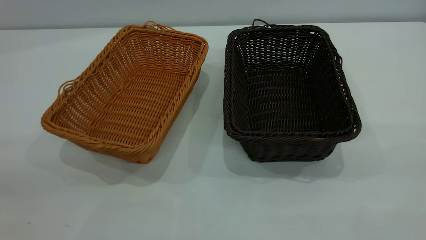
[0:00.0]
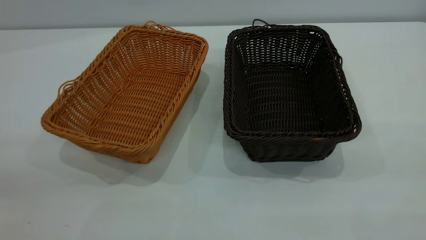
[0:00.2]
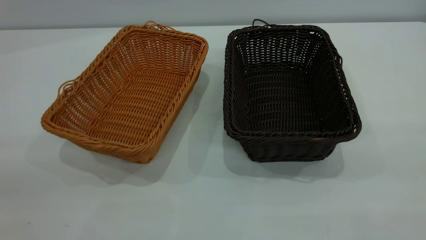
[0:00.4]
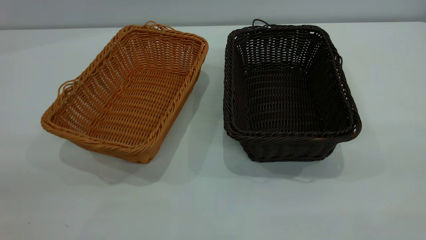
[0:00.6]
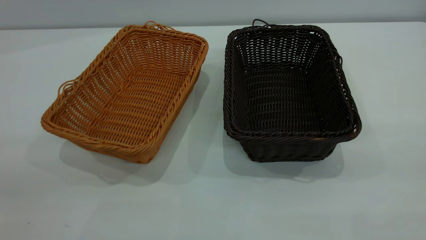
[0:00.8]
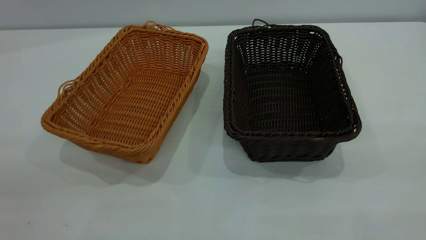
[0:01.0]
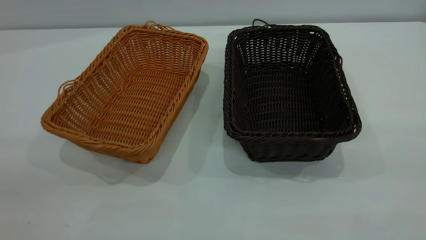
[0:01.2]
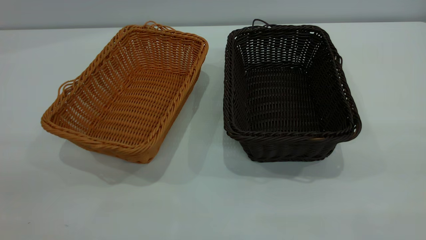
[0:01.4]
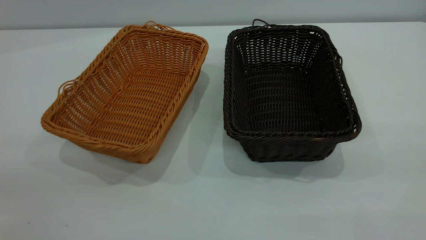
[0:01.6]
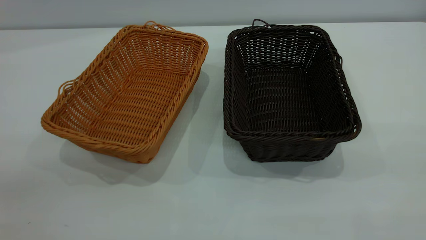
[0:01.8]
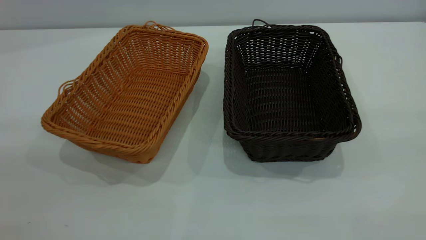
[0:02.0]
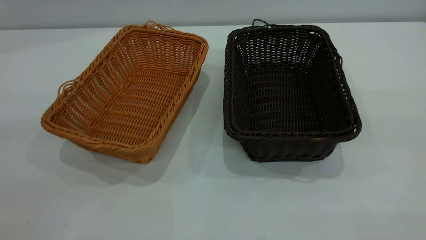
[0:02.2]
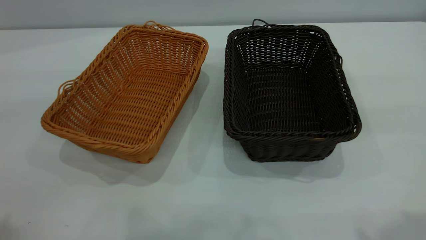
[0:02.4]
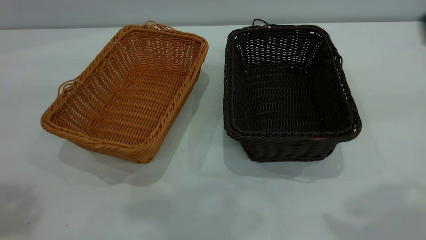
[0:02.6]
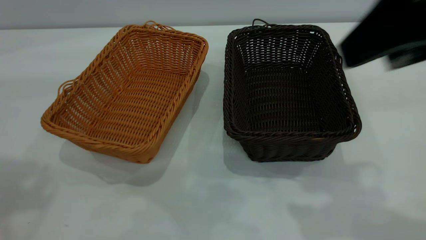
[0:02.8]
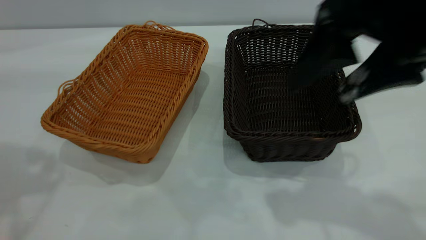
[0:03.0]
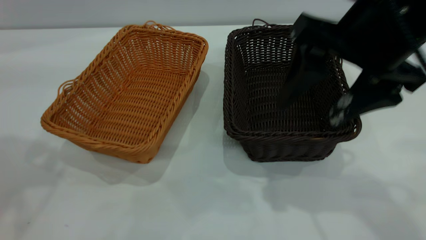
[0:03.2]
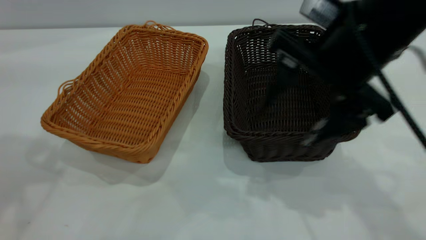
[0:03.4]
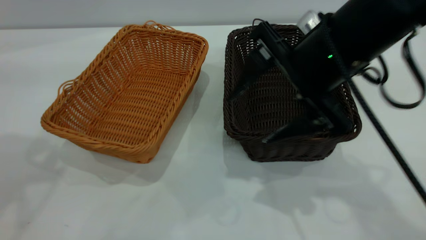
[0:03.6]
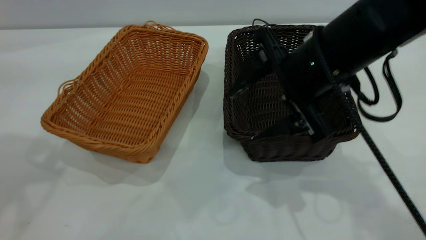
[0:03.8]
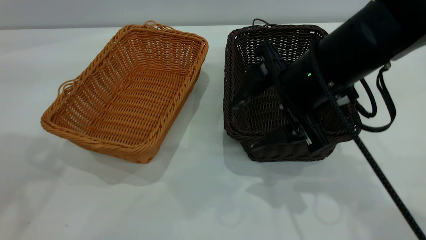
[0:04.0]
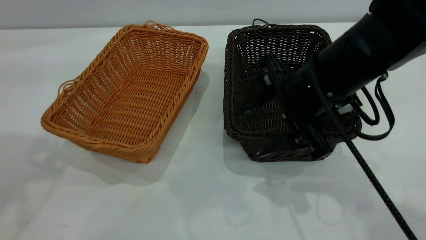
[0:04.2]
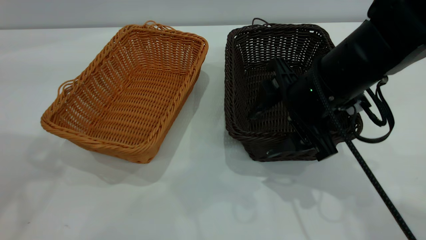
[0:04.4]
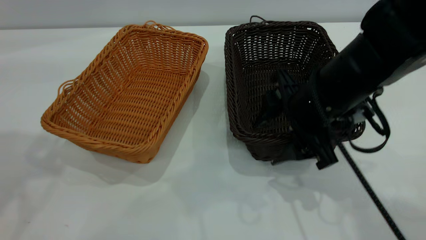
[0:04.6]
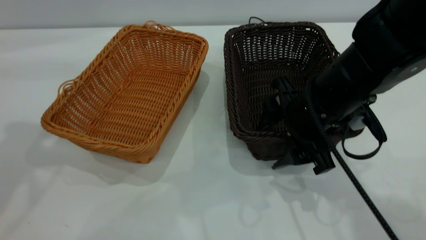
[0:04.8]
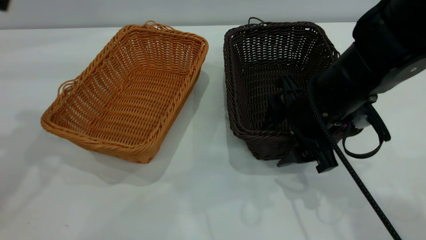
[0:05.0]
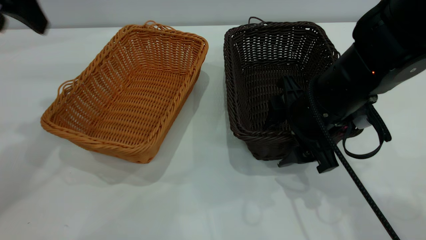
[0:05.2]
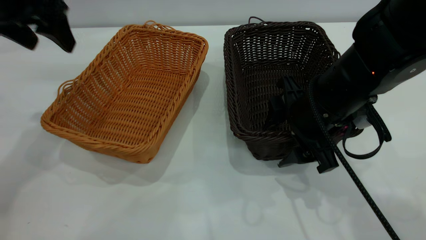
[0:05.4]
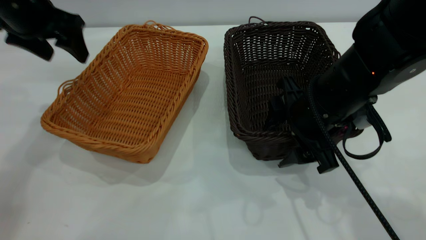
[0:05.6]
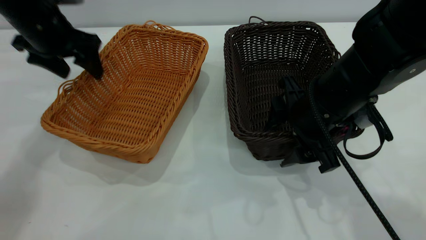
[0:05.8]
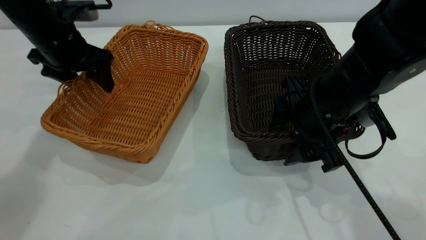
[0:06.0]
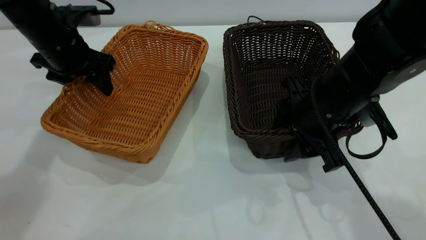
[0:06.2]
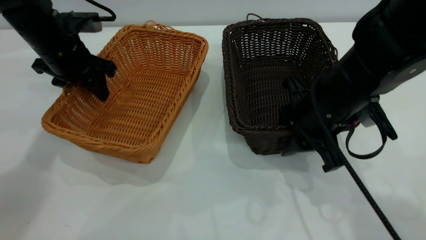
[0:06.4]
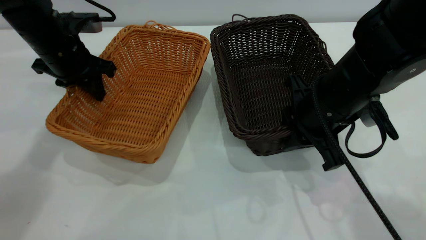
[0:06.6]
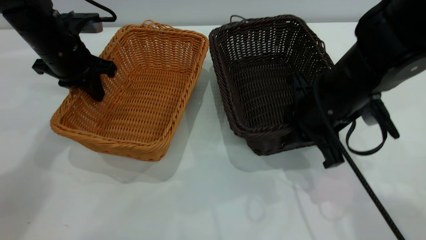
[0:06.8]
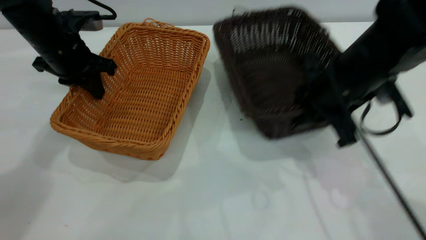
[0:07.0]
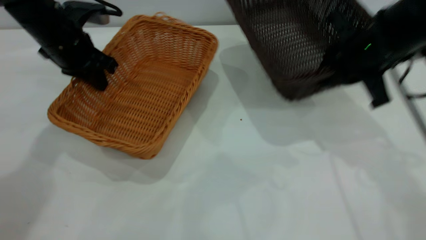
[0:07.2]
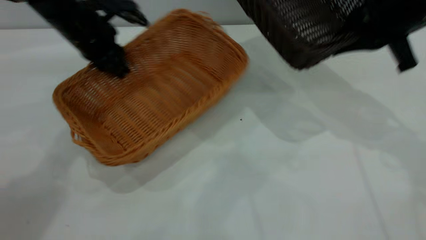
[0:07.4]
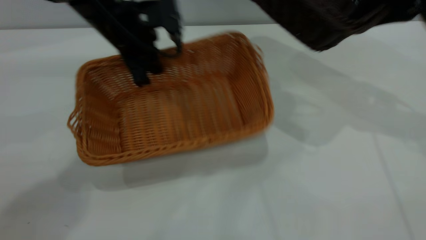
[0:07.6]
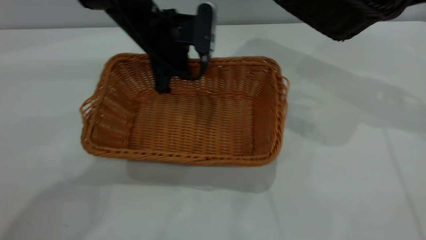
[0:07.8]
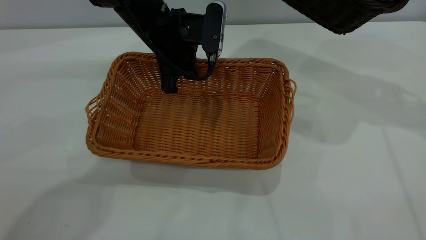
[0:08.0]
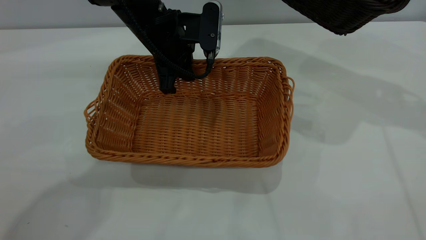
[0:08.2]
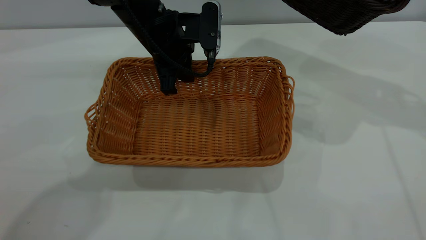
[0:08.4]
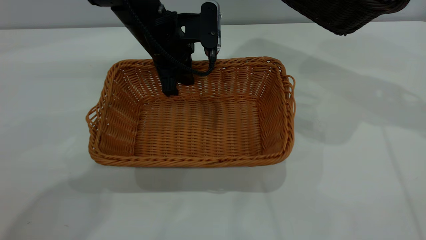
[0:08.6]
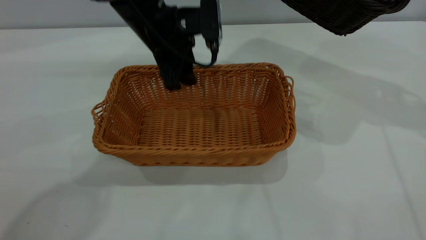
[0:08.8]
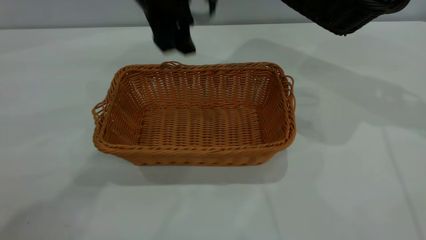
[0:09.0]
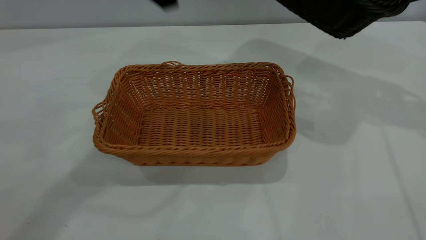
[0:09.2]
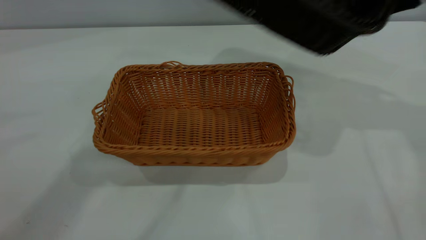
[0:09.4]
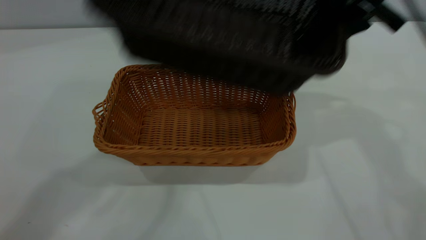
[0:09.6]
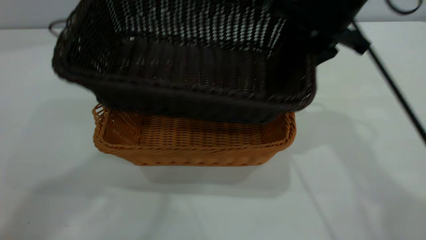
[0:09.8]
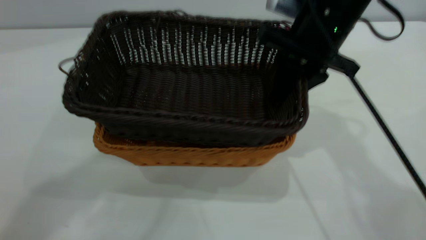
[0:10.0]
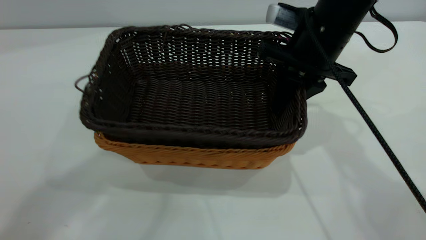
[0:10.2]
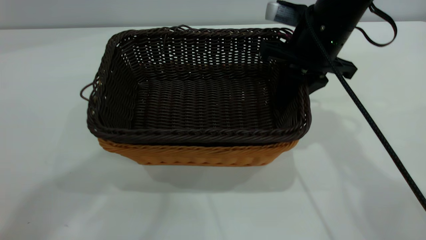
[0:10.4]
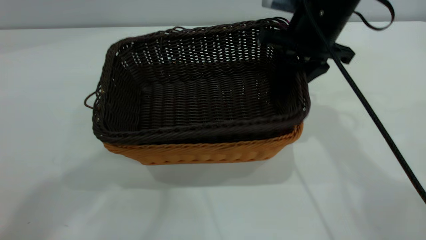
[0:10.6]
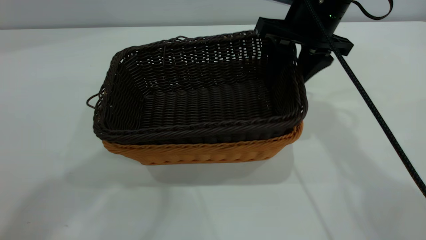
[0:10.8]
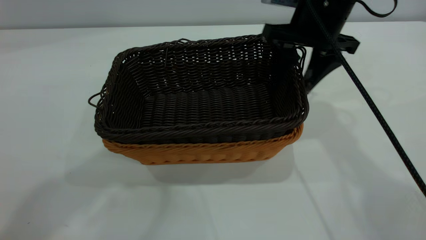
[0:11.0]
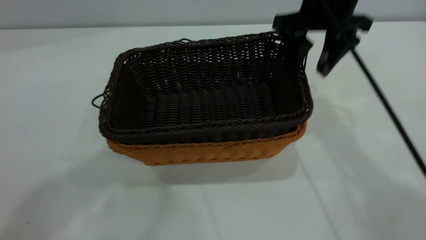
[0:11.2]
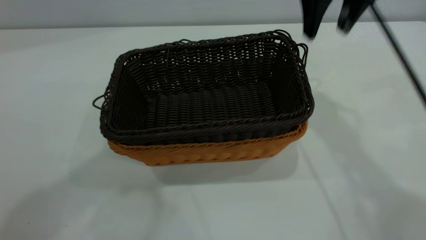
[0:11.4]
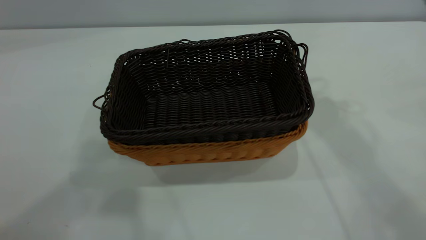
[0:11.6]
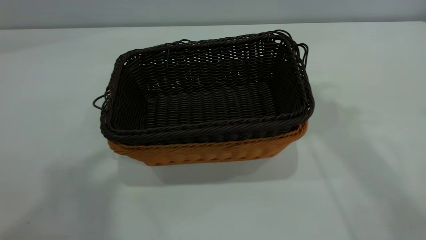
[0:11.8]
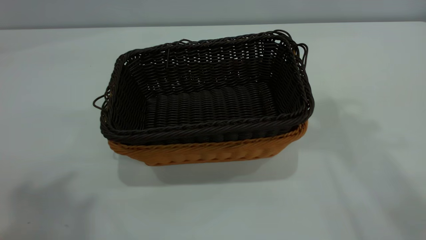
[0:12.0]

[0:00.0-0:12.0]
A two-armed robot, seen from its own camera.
Task of the whole recording: the left gripper grasp the brown basket and place it in the center of the table, the right gripper grasp the black basket and place it inside the brown one.
Step, 0:00.0 to 0:07.2: Pick up the light basket with the right gripper.
Step, 0:07.4 to 0:09.0: Place the light-colored basket in the center.
Step, 0:09.2 to 0:11.2: Place the dark basket on top of the light basket.
0:00.0 to 0:01.6: Both grippers stay about where they are.
0:01.6 to 0:03.0: The right gripper shifts about 25 cm forward and to the left.
0:03.0 to 0:04.4: The right gripper shifts some 15 cm downward and forward.
0:04.4 to 0:06.0: The left gripper goes about 25 cm downward and forward.
0:06.0 to 0:07.6: The right gripper moves upward, to the right and forward, approximately 20 cm, and closes its fingers. Meanwhile the left gripper shifts approximately 10 cm to the right, and closes up.
0:07.6 to 0:09.0: The left gripper moves upward, some 10 cm, and opens up.
0:09.0 to 0:10.4: The left gripper is displaced upward and backward by roughly 25 cm; the right gripper moves to the left and downward, approximately 20 cm.
0:10.4 to 0:12.0: The left gripper is displaced backward, to the left and upward by approximately 15 cm. Meanwhile the right gripper travels upward by approximately 30 cm, and opens its fingers.

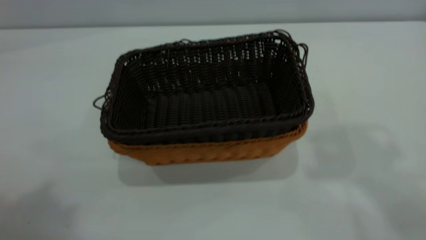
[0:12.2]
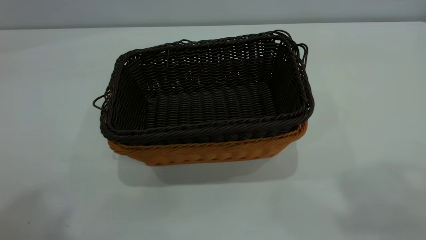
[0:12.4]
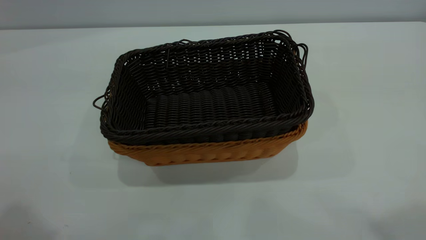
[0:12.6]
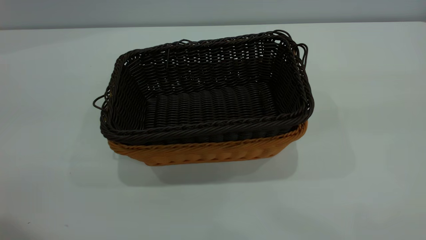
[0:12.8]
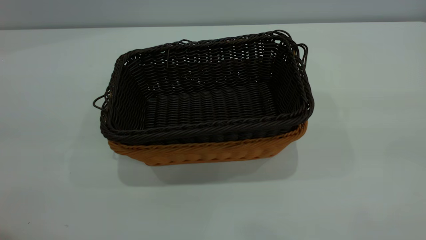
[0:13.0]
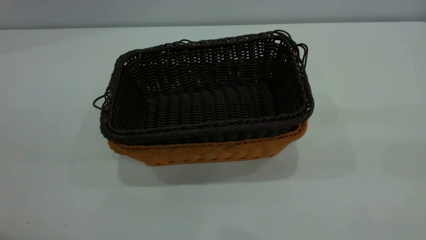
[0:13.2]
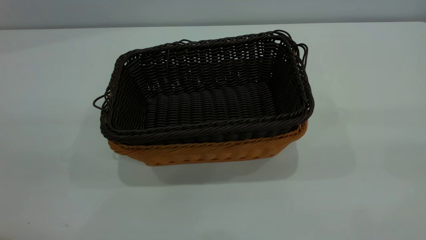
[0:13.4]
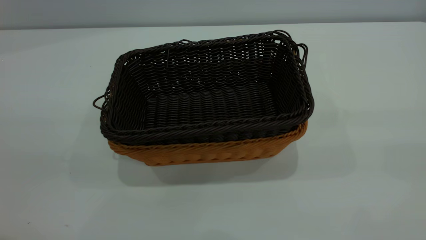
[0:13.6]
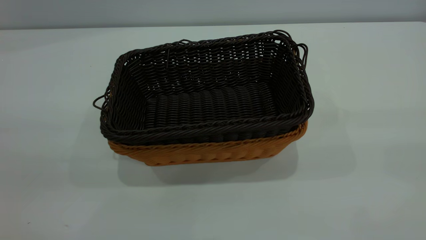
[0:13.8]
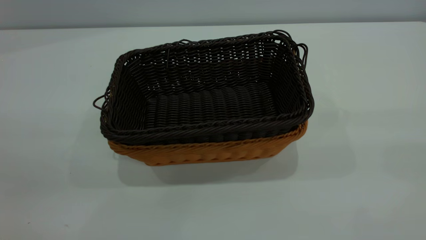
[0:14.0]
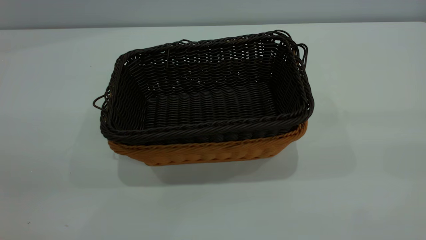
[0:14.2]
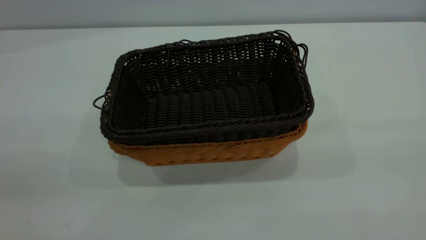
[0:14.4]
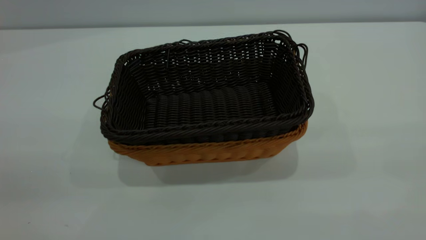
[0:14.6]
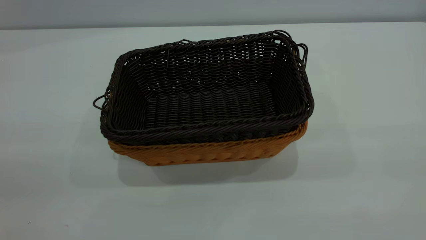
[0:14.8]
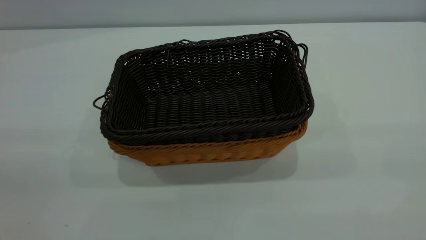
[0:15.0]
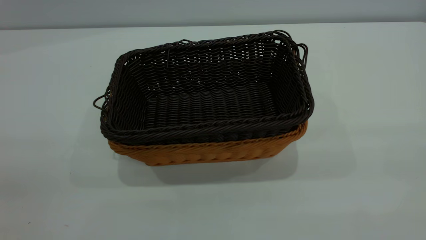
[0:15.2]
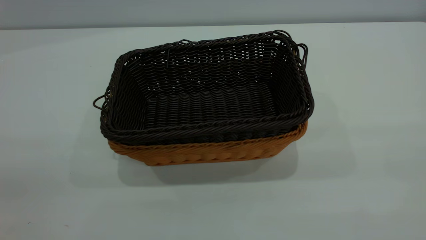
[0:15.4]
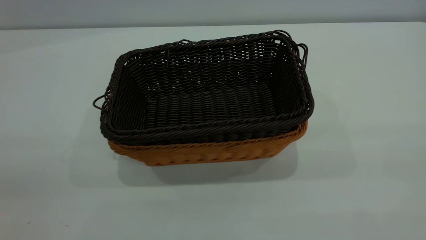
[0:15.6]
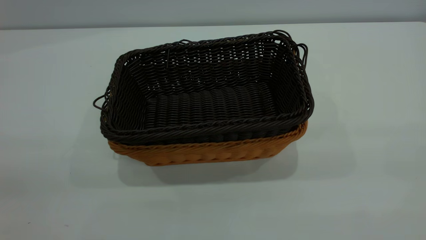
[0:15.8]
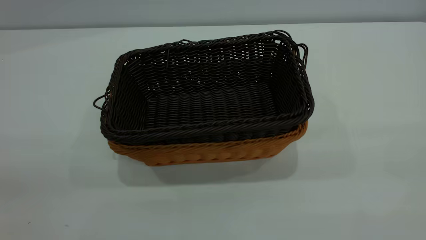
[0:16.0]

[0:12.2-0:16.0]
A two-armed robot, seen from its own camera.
Task of the whole recording: the left gripper grasp the brown basket and place it in the center of the table, the right gripper grasp the black basket and place it inside the brown one.
0:12.2 to 0:13.4: The left gripper goes some 20 cm downward.
